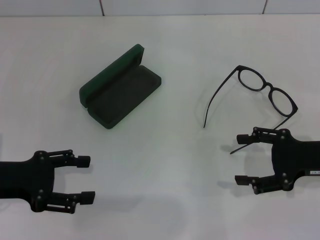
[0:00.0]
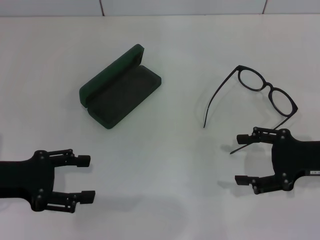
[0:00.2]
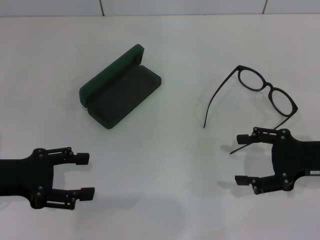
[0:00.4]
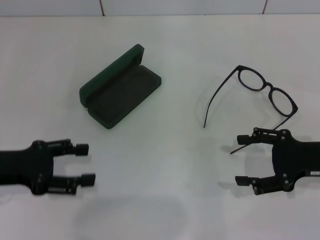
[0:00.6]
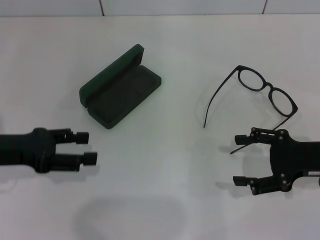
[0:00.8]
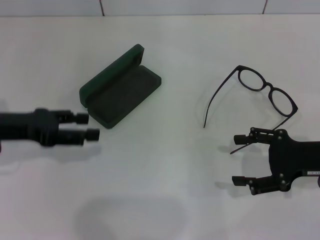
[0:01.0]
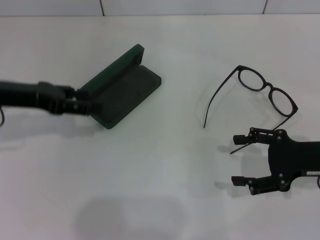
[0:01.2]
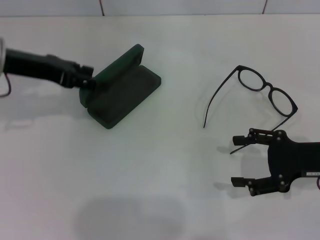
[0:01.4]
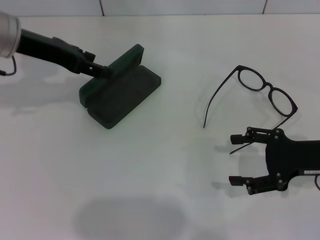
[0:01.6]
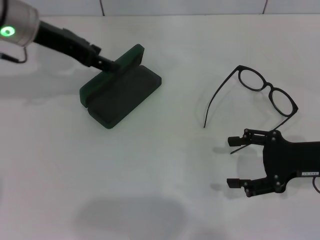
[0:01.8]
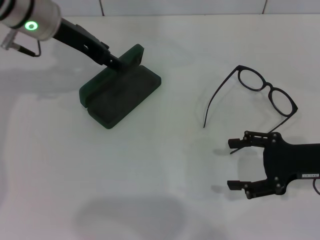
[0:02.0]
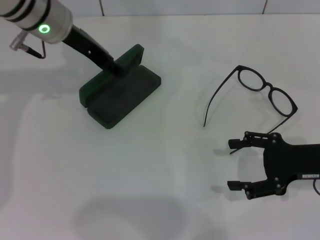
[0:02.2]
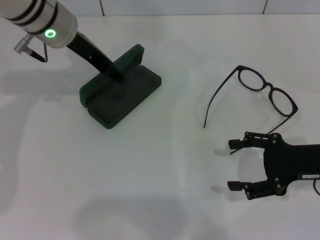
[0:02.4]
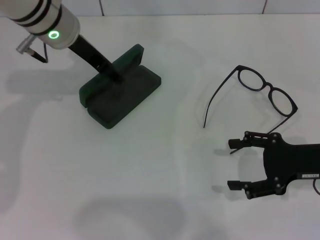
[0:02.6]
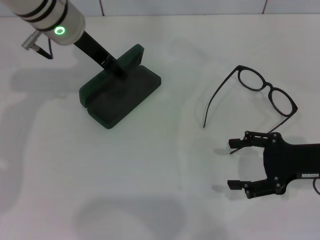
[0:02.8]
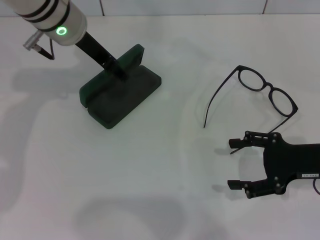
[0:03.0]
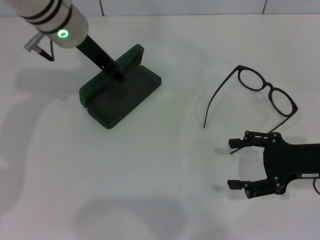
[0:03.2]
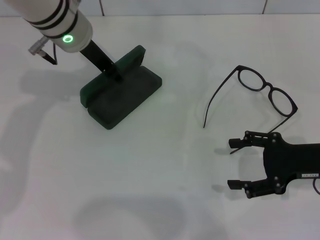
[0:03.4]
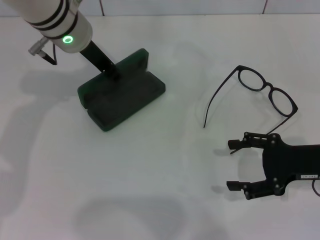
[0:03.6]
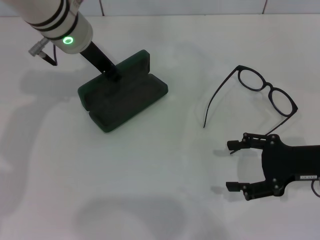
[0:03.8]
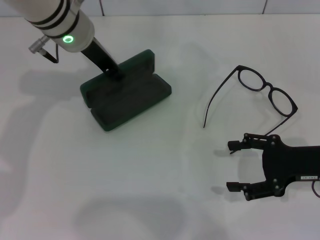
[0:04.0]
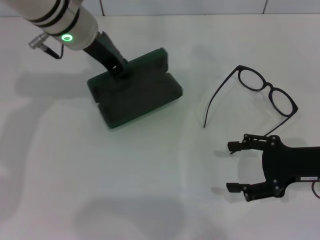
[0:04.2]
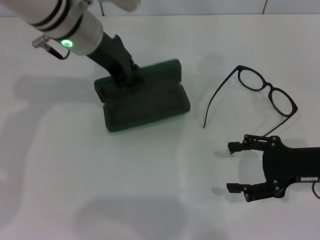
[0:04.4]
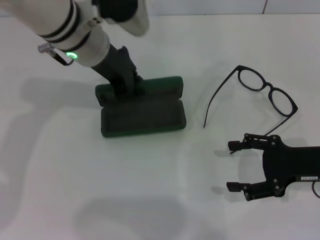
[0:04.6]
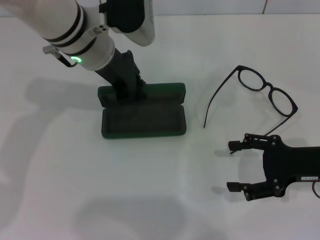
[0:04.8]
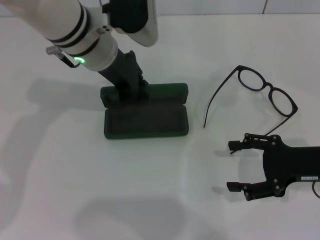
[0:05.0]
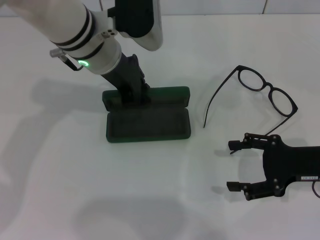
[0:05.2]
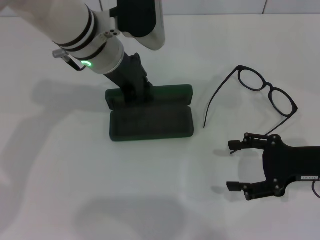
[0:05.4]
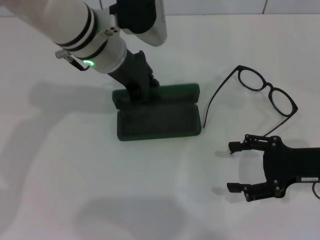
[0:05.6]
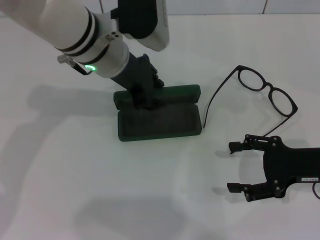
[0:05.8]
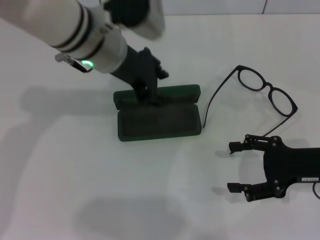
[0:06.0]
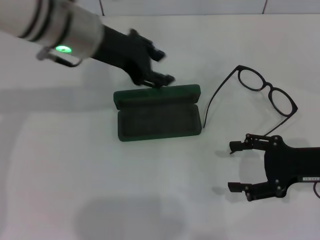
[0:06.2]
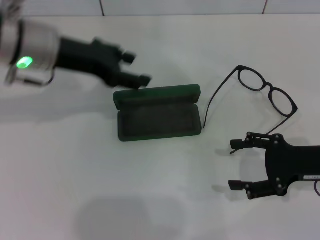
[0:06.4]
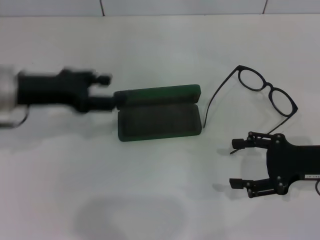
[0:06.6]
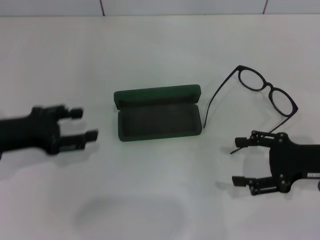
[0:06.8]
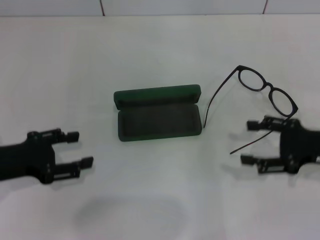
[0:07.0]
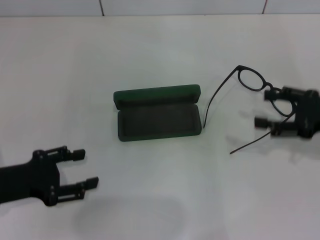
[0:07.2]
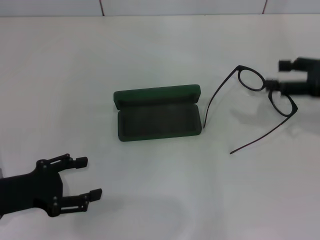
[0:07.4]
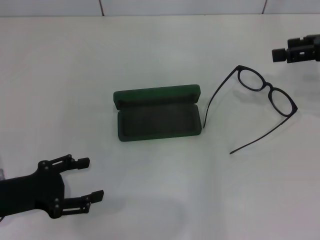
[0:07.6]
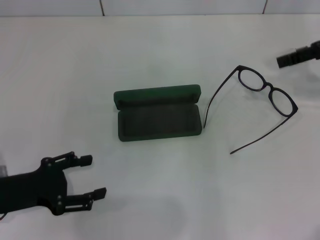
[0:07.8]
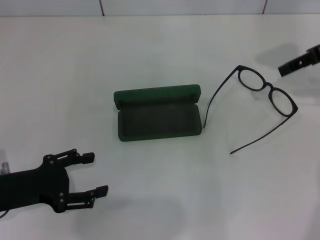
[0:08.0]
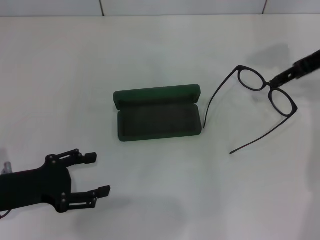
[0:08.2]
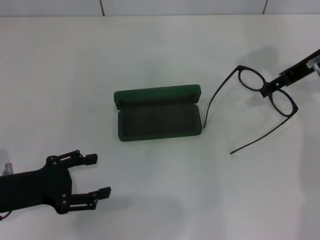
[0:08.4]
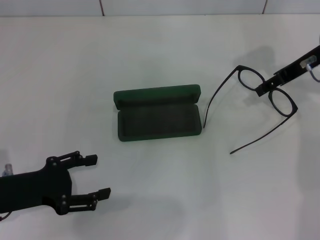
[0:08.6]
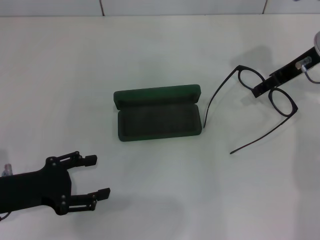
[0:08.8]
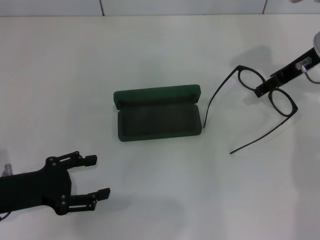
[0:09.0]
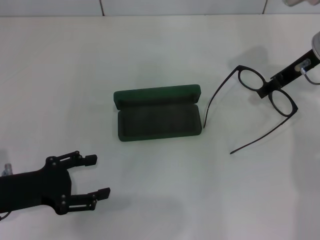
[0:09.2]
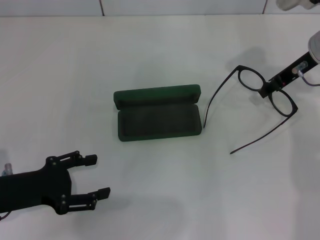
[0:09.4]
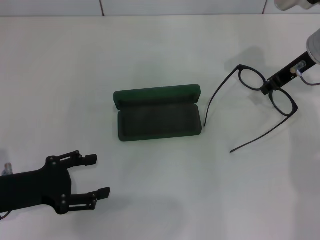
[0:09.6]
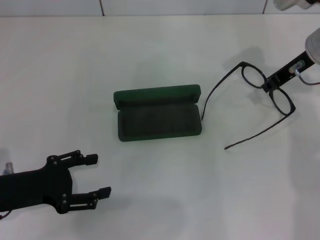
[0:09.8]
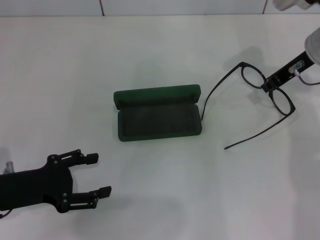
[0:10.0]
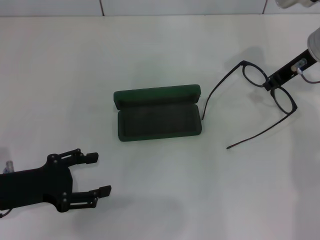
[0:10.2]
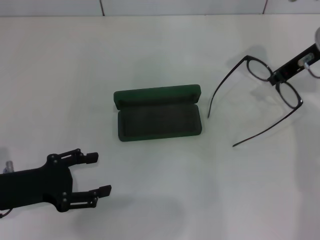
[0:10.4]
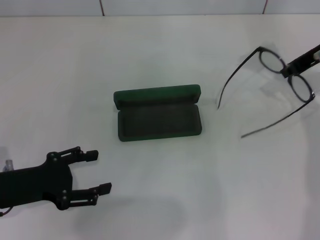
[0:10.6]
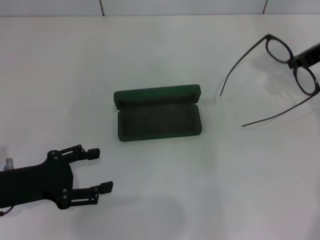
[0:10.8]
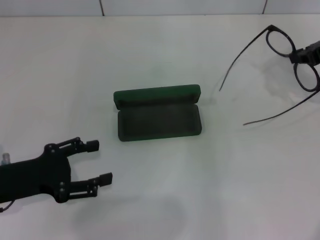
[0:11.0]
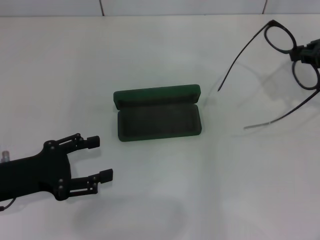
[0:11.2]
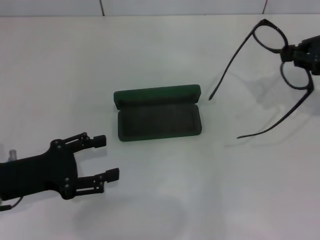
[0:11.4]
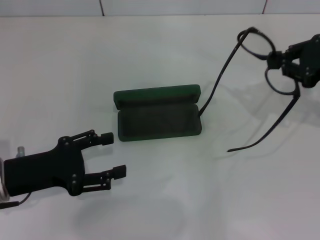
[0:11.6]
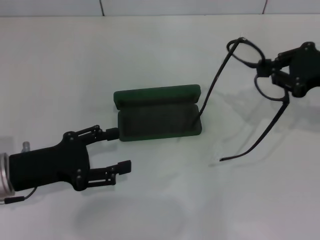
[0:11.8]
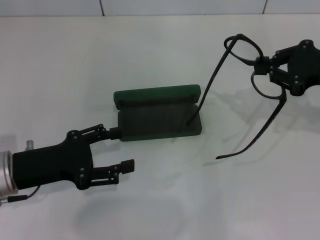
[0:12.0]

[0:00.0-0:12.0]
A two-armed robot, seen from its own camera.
Step, 0:00.0 to 0:03.4: Grab the glasses case with your left hand.
Step, 0:03.6 to 0:05.8: Place the glasses case in the center of the table with your left hand.
Step, 0:06.0 to 0:09.6: Grab the eyeglass frame with your right hand.
0:00.0 to 0:01.6: The left gripper heads forward and upward, covering about 20 cm.
0:01.6 to 0:03.0: The left gripper moves to the right, some 10 cm.
0:03.0 to 0:04.4: The left gripper closes up.
0:04.4 to 0:06.0: There are only small adjustments of the grippers.
0:06.0 to 0:07.6: The left gripper travels to the left, backward and downward by about 30 cm, and opens up, while the right gripper is displaced upward and forward by some 15 cm.
0:07.6 to 0:09.0: The right gripper shifts approximately 10 cm to the left and forward.
0:09.0 to 0:10.4: The right gripper closes up.
0:10.4 to 0:12.0: The right gripper shifts approximately 10 cm backward and to the right.

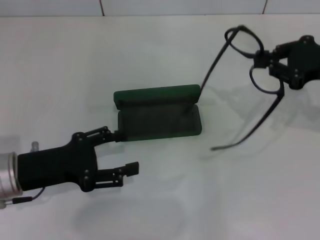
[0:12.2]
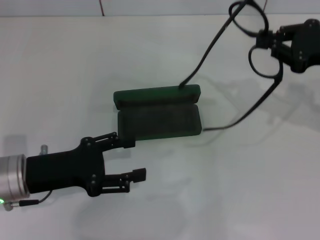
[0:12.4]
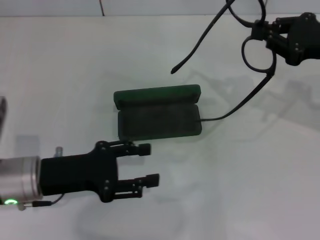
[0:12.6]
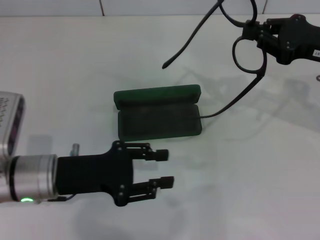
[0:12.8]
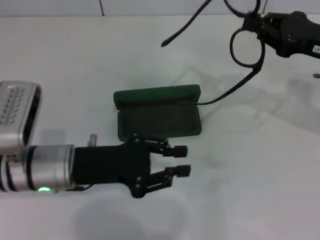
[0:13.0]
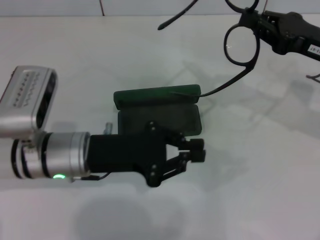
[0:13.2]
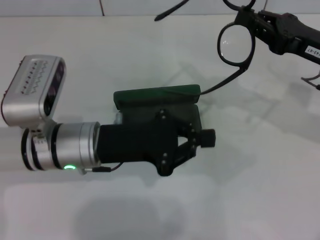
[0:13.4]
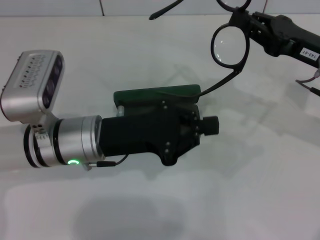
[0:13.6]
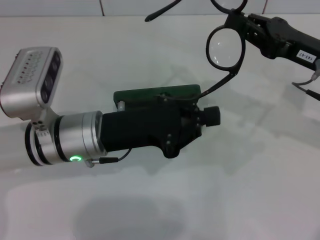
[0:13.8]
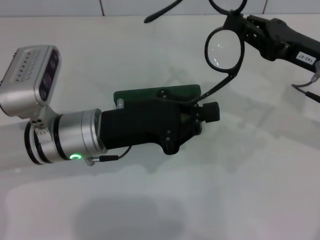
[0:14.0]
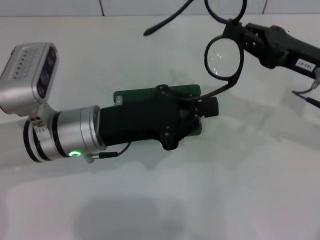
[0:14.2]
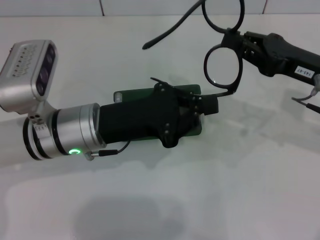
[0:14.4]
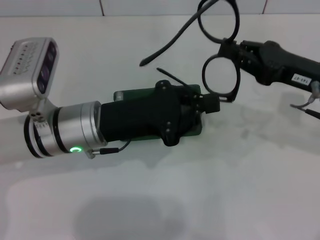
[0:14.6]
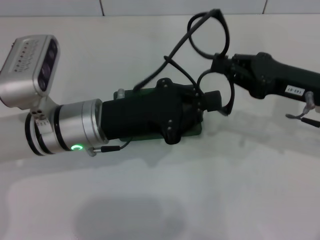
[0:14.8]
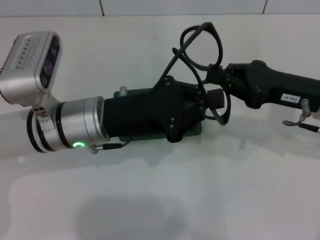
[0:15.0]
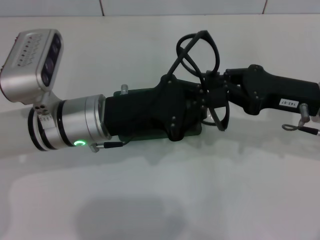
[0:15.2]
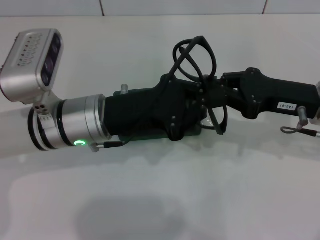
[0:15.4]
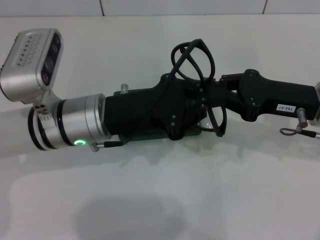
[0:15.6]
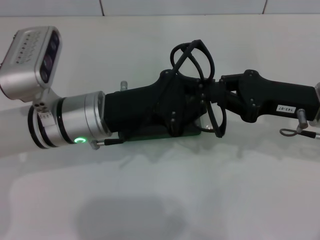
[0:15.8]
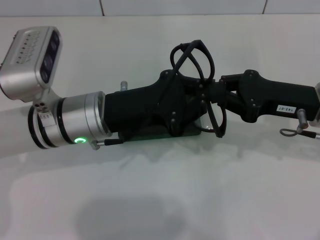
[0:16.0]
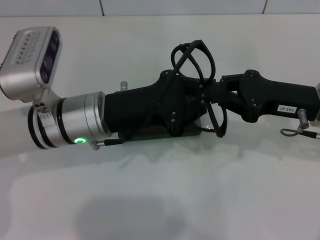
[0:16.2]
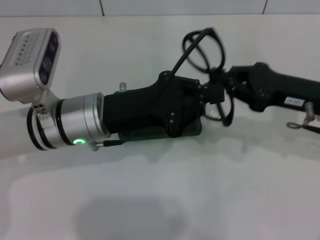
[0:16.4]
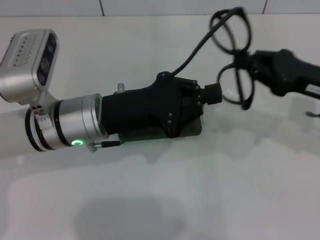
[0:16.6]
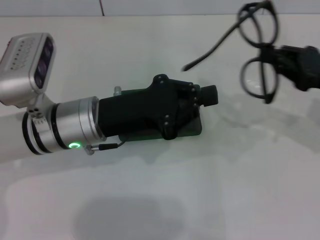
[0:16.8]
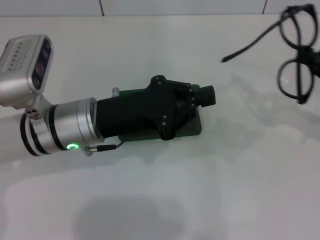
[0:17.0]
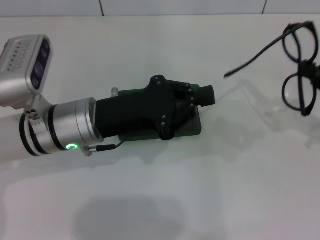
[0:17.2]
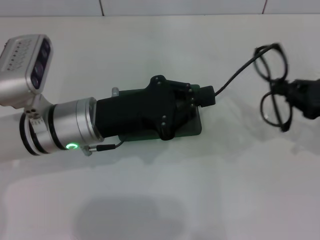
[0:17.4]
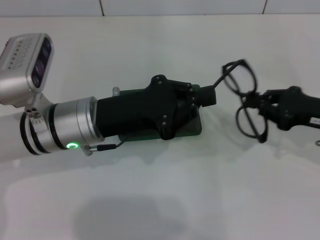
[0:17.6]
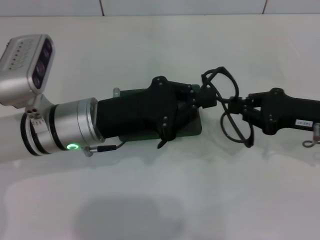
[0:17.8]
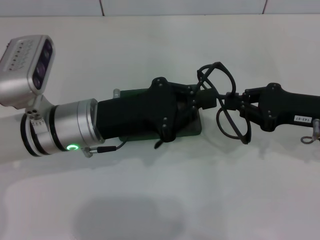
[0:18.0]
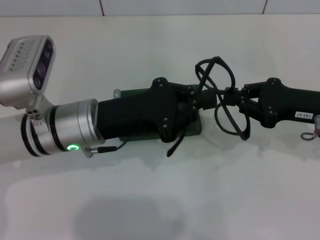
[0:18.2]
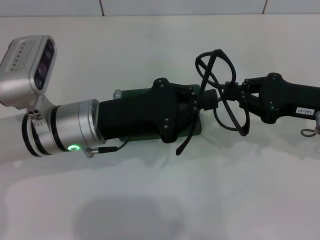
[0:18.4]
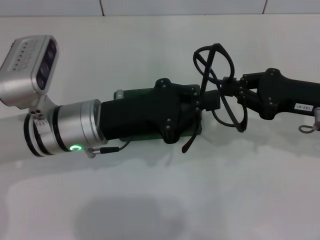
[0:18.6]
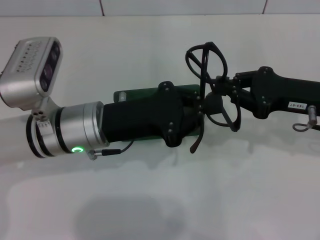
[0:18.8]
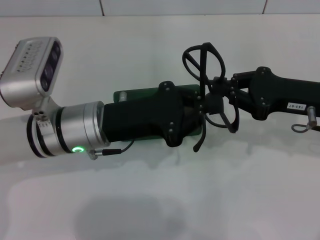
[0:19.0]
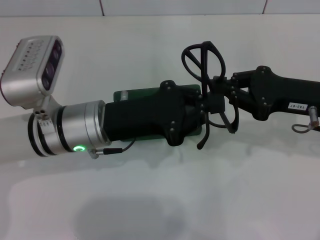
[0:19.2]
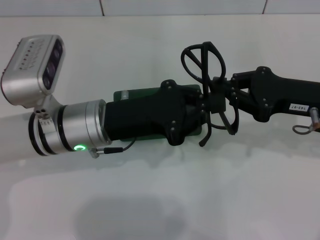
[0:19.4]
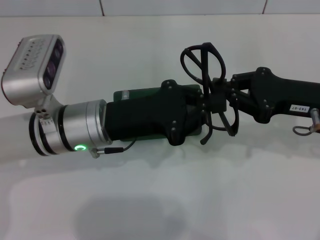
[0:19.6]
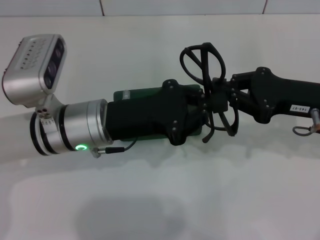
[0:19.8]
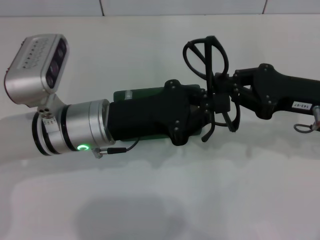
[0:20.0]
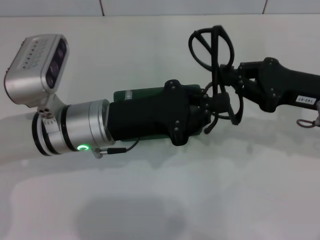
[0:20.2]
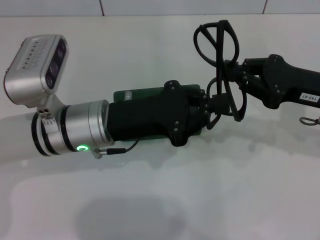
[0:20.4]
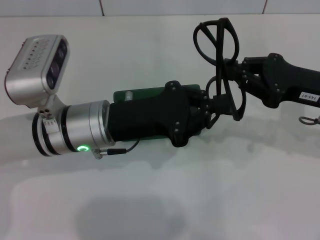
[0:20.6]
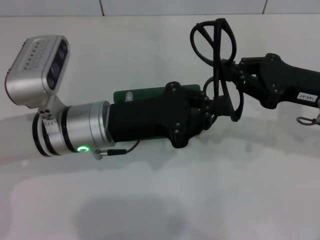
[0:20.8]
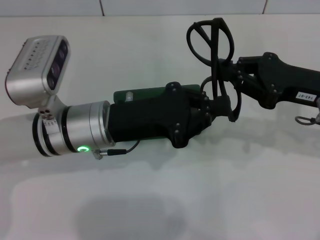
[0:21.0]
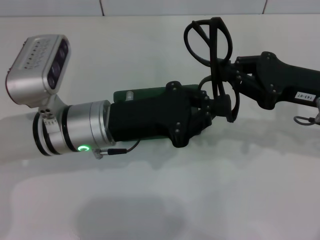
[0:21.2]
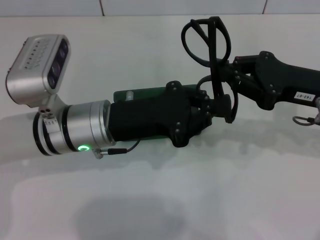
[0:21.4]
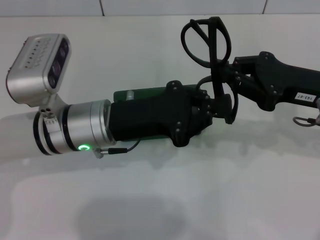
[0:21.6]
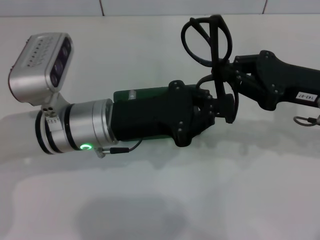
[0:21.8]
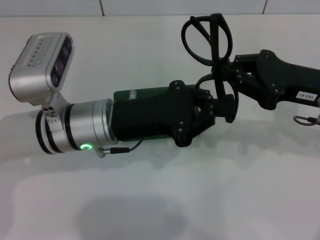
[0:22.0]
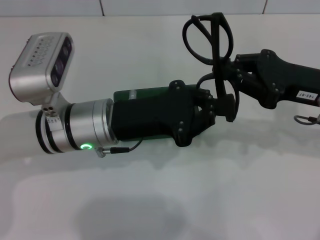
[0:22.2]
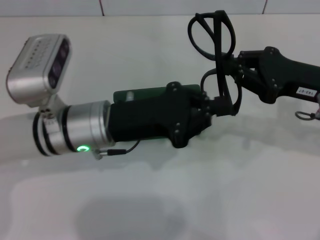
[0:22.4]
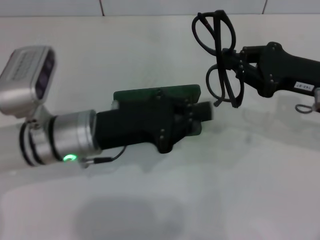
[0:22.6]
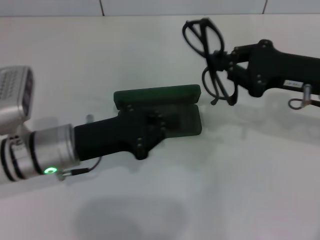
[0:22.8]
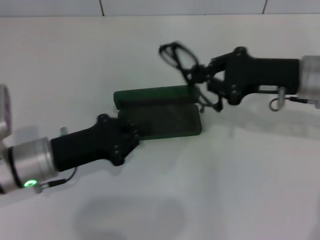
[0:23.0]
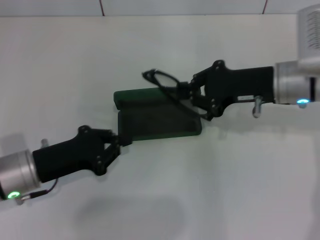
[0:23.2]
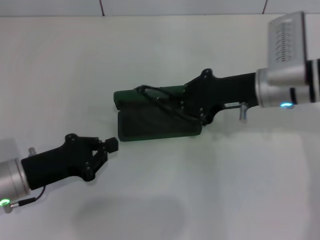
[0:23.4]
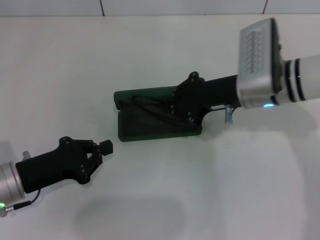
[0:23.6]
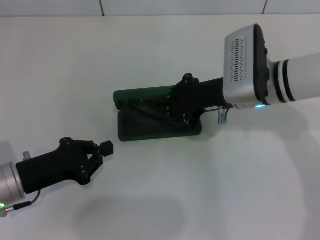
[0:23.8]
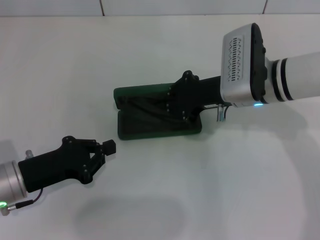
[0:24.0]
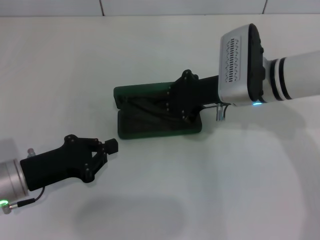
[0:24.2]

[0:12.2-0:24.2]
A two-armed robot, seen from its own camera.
Step, 0:12.2 to 0:22.2: Fold the frame with your left hand.
0:12.2 to 0:13.8: The right gripper shifts by approximately 5 cm, while the left gripper is displaced to the right by about 10 cm, and closes up.
0:15.2 to 0:16.6: The grippers make only small movements.
0:16.6 to 0:18.2: The right gripper travels to the right and back again, approximately 10 cm each way.
0:18.2 to 0:22.6: The grippers stay close to where they were, moving slightly.
0:22.6 to 0:24.2: The right gripper heads to the left, covering about 15 cm, while the left gripper goes roughly 10 cm to the left and downward.
